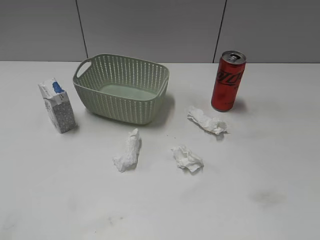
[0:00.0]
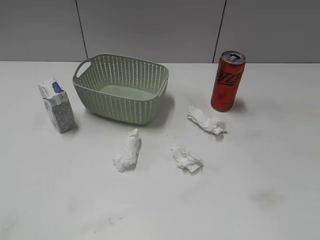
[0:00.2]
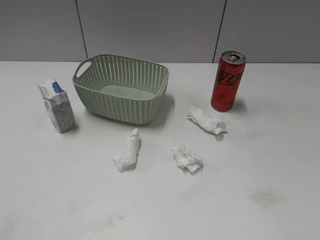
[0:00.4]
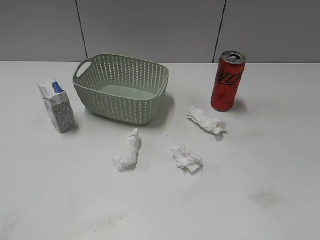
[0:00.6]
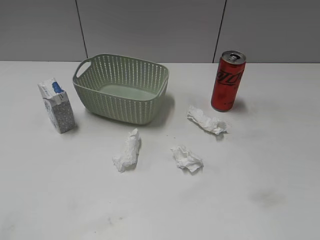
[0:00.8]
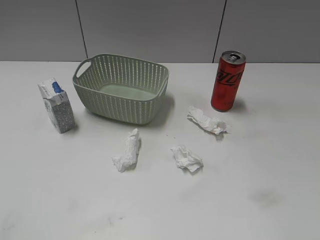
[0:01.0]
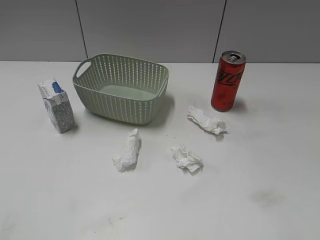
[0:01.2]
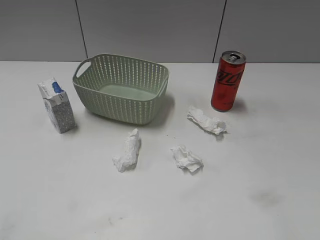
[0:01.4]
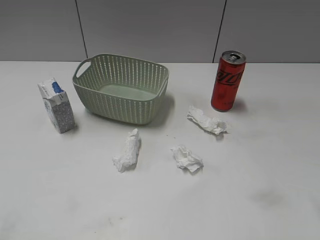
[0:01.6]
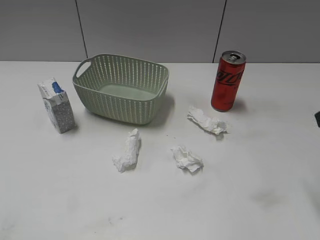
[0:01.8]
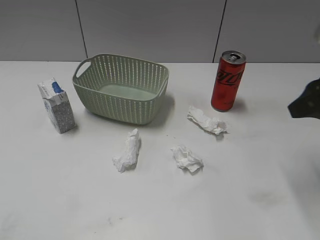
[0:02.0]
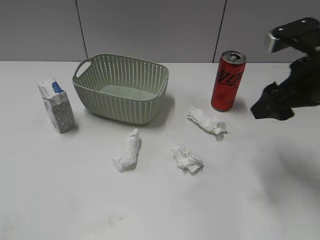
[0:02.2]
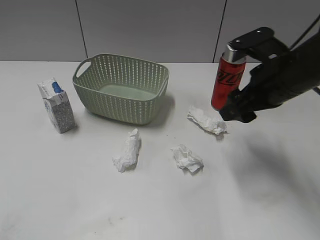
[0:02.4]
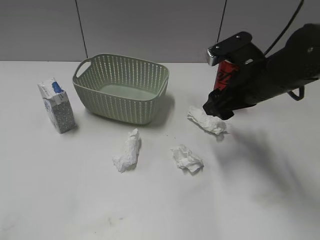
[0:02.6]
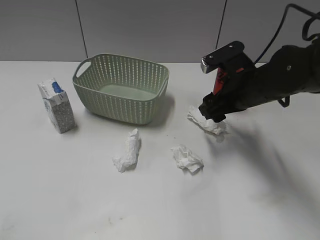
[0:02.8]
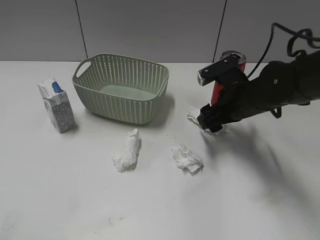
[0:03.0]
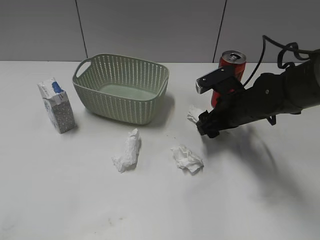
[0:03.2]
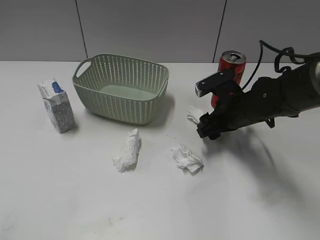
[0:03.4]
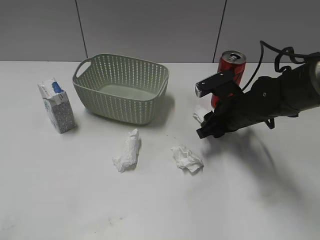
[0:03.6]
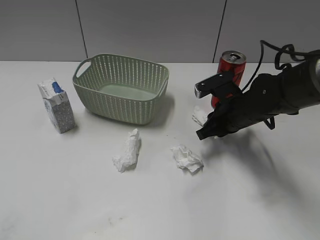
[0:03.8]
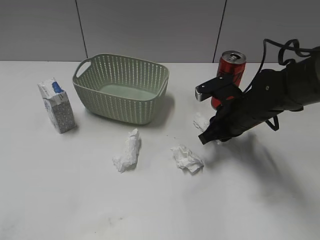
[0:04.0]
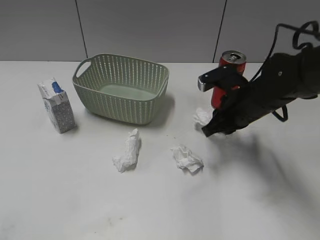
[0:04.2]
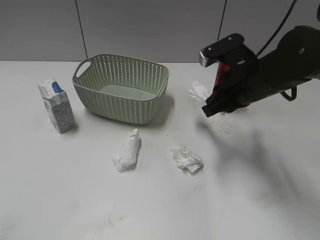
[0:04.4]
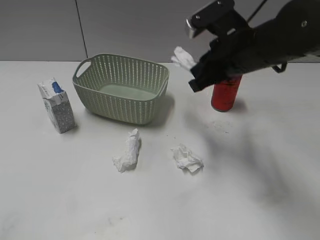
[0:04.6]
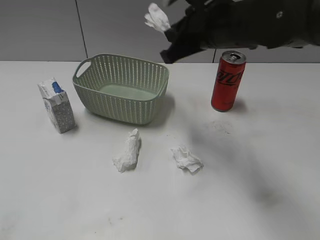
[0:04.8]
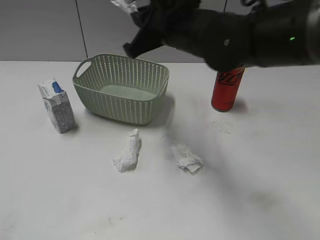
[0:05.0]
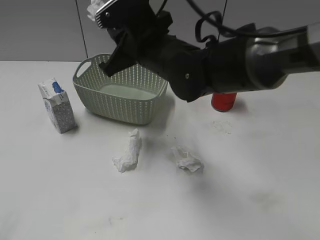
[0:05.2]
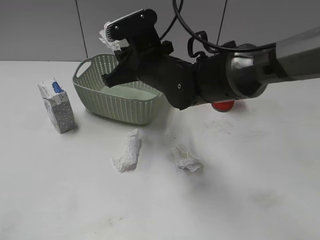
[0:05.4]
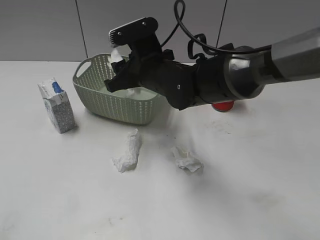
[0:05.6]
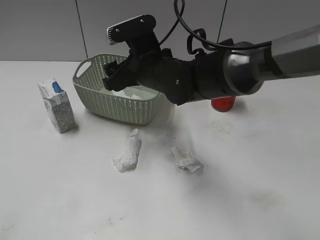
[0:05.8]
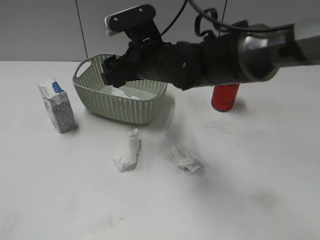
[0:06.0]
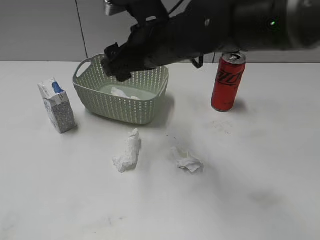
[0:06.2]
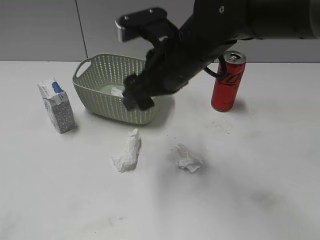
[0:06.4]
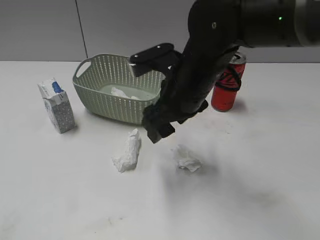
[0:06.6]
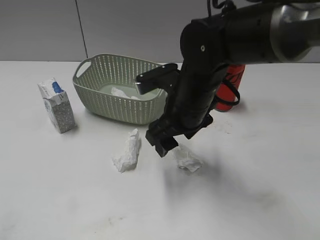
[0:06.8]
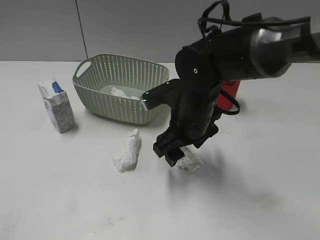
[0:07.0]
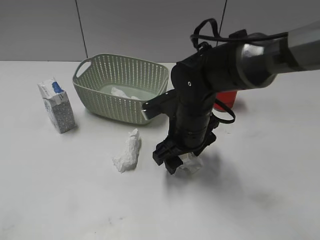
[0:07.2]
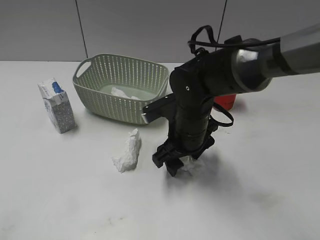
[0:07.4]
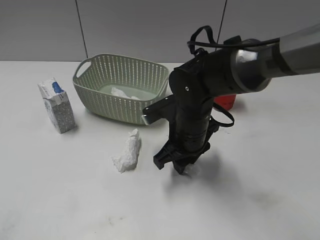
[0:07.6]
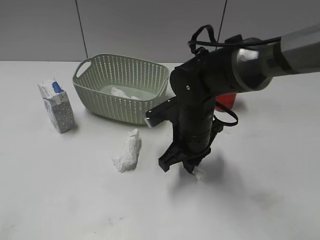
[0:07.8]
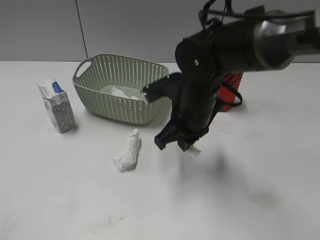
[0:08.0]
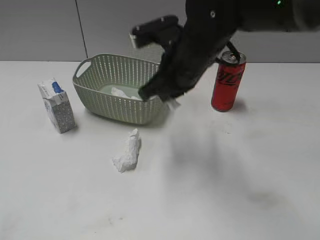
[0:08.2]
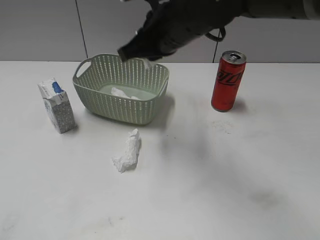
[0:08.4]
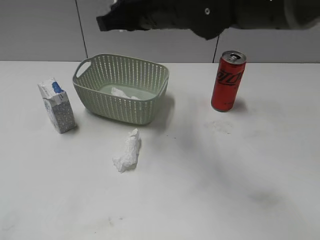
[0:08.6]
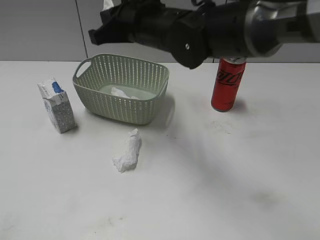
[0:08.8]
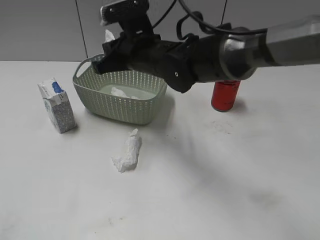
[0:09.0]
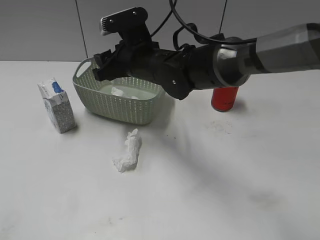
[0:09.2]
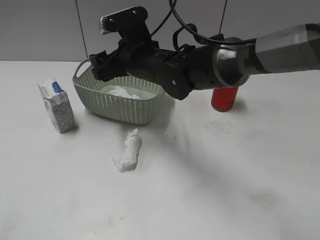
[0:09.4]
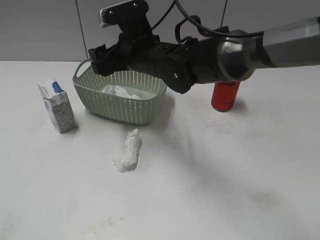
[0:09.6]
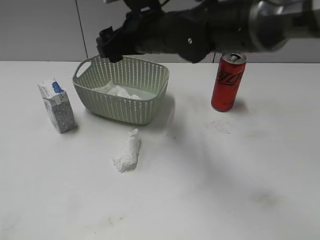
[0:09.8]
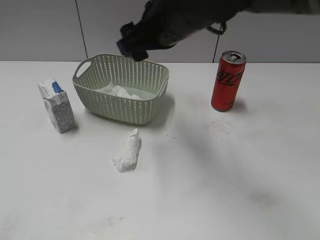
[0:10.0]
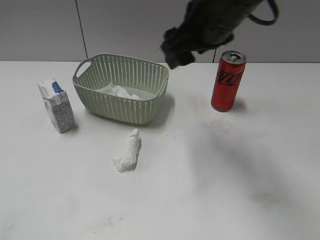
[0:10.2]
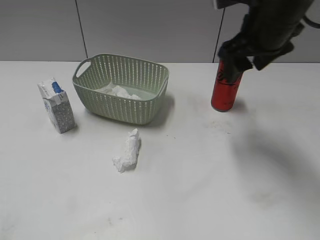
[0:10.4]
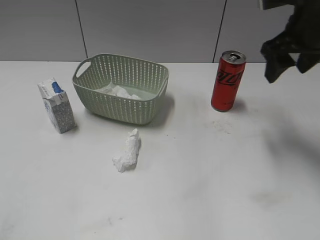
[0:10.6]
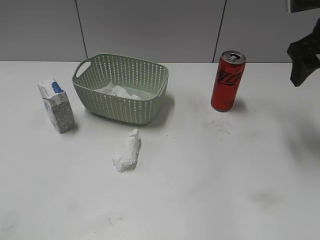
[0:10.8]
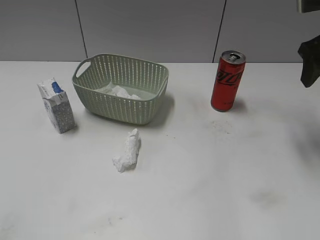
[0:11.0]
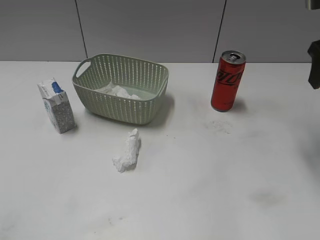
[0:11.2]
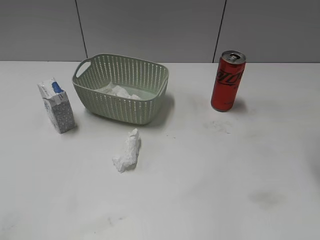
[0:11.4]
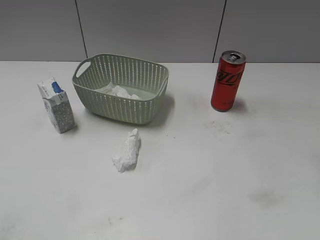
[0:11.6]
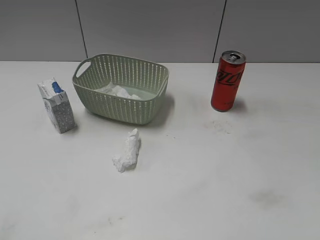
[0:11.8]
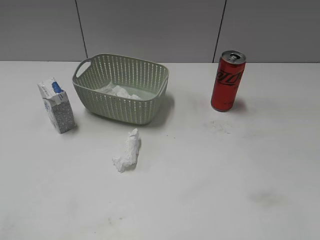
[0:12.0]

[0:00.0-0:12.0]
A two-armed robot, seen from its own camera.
Step, 0:01.8 to 0:03.8: Grasp the waste paper with right gripper.
Step, 0:04.0 to 0:05.8: Place the waste paper in the basket with right gripper.
Step, 0:06.0 to 0:08.0: Grasp the waste paper with right gripper.
Step, 0:08.2 to 0:09.6: Place the waste paper in the basket with right gripper.
0:01.6 to 0:03.0: The right gripper goes about 30 cm forward, downward and to the left.
0:03.0 to 0:04.4: The right gripper closes.
0:04.4 to 0:06.0: The right gripper moves to the left, some 15 cm, and opens its fingers.
0:06.0 to 0:07.6: The right gripper shifts approximately 10 cm downward, backward and to the right.
0:07.6 to 0:09.0: The right gripper shifts about 15 cm upward, forward and to the left, and closes its fingers.
0:09.0 to 0:10.4: The right gripper travels to the right and upward by roughly 20 cm, and opens its fingers.
0:10.4 to 0:12.0: The right gripper travels backward and to the right by approximately 25 cm.

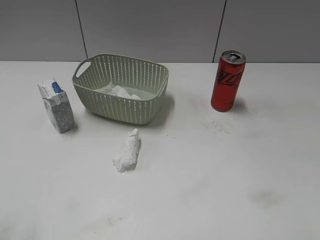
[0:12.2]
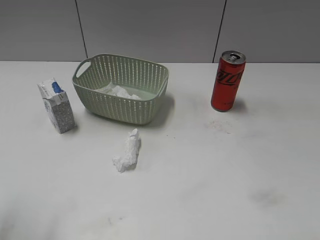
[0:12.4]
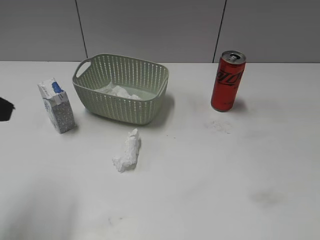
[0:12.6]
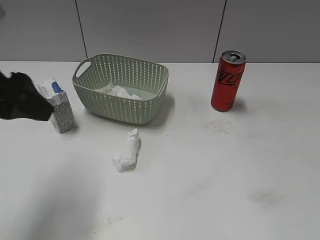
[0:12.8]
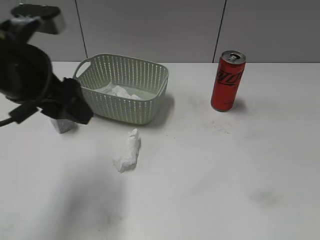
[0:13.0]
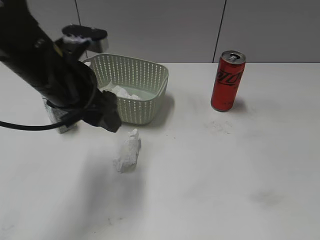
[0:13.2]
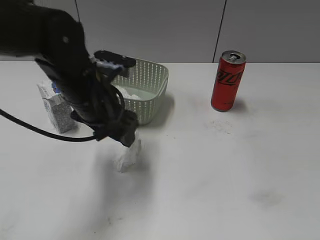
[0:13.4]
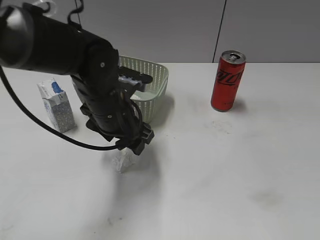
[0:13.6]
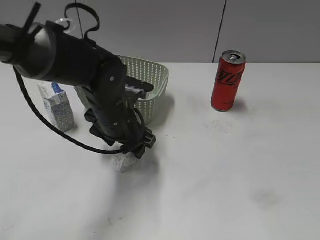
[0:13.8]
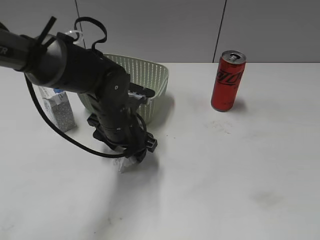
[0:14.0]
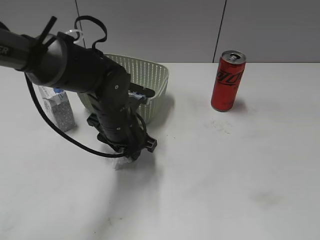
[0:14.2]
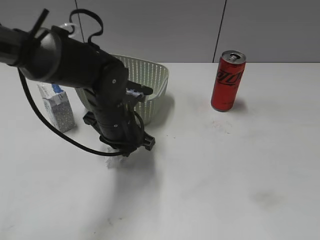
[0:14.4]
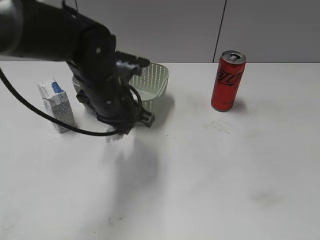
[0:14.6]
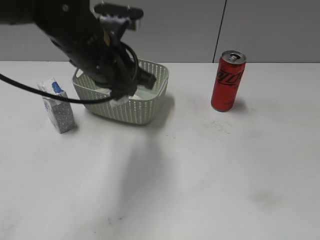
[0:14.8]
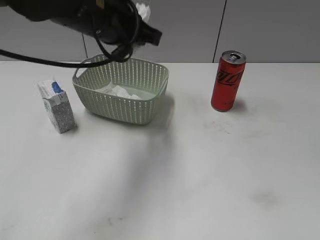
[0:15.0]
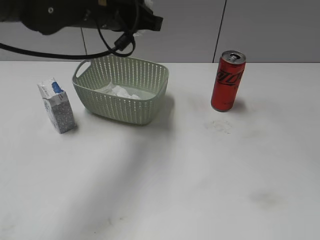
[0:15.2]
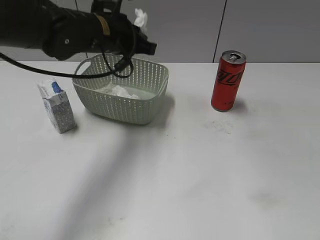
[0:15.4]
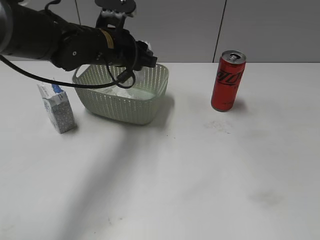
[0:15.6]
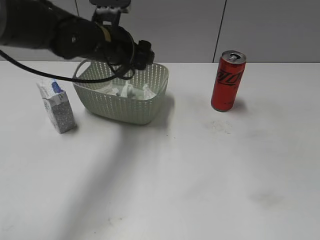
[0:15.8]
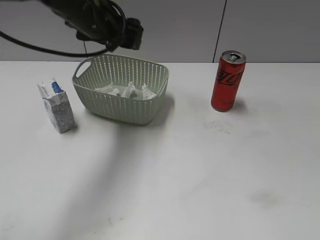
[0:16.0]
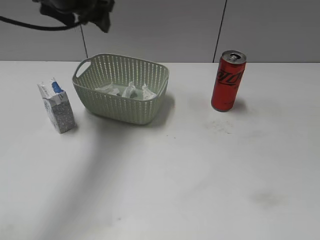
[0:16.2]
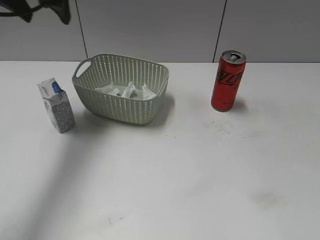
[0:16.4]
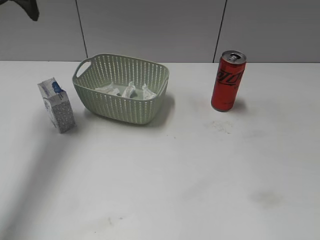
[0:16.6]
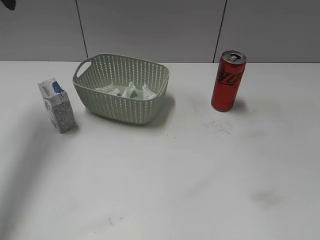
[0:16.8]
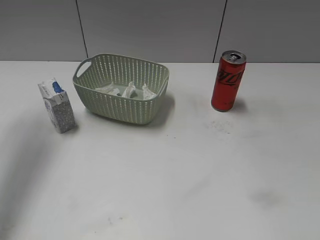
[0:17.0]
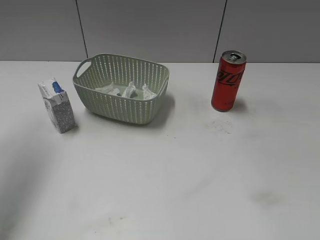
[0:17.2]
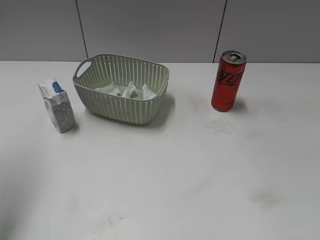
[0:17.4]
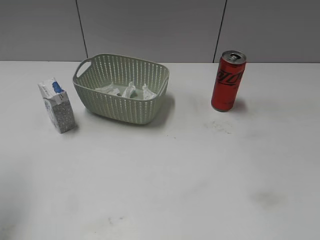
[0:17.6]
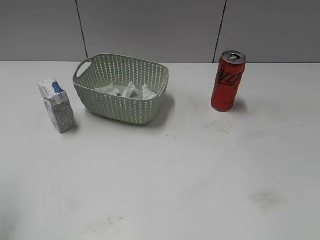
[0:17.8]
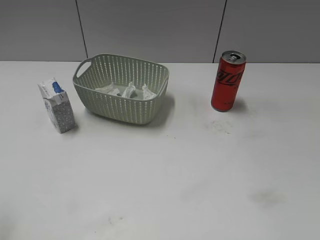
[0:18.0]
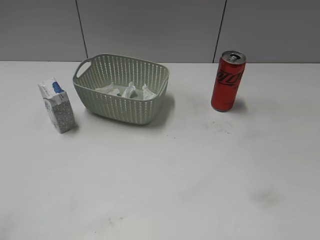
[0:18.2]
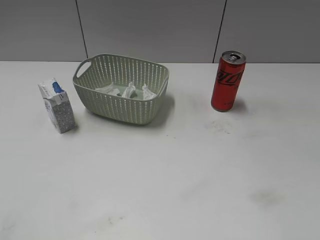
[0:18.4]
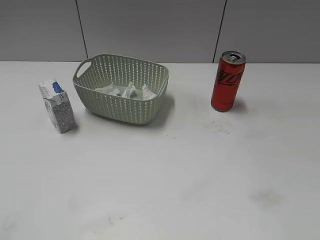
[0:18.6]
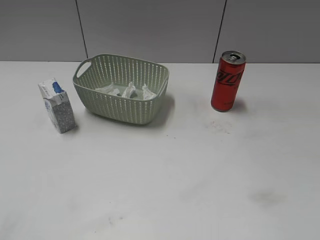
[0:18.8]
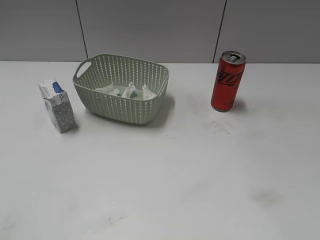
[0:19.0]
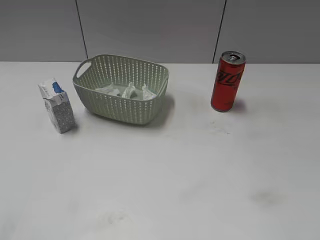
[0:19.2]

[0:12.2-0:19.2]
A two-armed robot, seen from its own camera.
Step, 0:12.2 to 0:14.4: Grasp the waste paper with left gripper.
Step, 0:14.6 to 0:15.8: Place the waste paper in the basket with left gripper.
0:12.2 to 0:13.6: The right gripper shifts about 10 cm backward, while the left gripper shifts roughly 35 cm to the right, forward and downward.
0:13.6 to 0:15.0: The left gripper shifts roughly 10 cm upward, and closes up.
0:15.0 to 0:16.4: The left gripper travels to the left, forward and upward by about 15 cm, and opens its fingers.
0:16.4 to 0:17.8: The left gripper heads backward and to the left, covering about 25 cm.

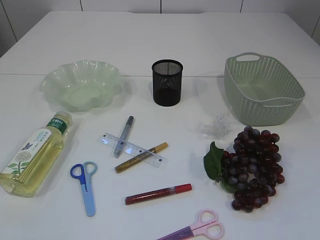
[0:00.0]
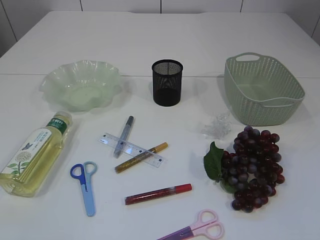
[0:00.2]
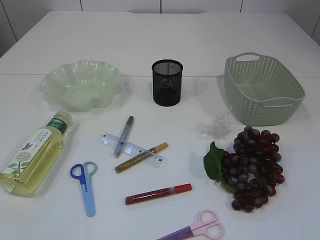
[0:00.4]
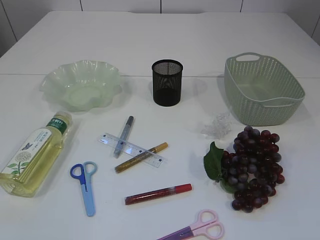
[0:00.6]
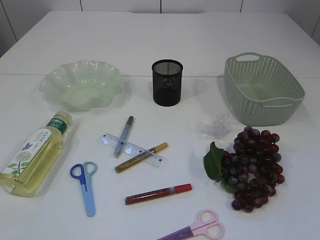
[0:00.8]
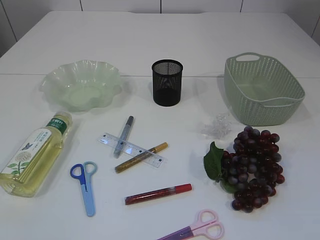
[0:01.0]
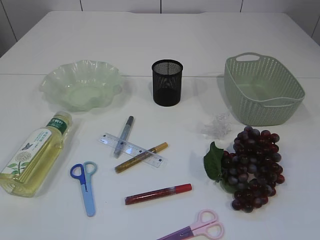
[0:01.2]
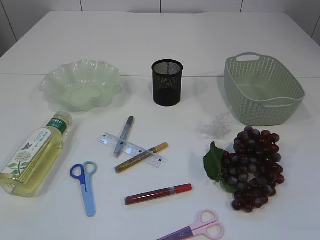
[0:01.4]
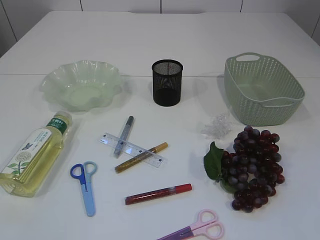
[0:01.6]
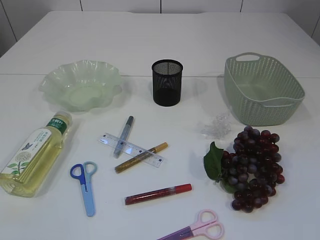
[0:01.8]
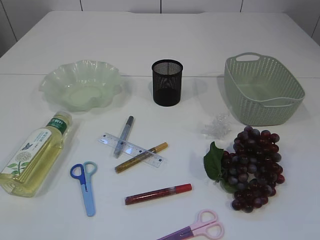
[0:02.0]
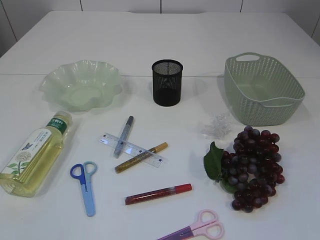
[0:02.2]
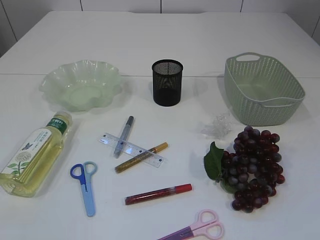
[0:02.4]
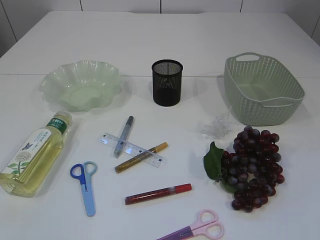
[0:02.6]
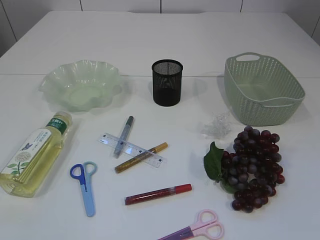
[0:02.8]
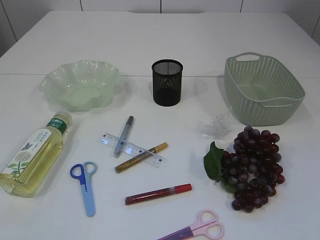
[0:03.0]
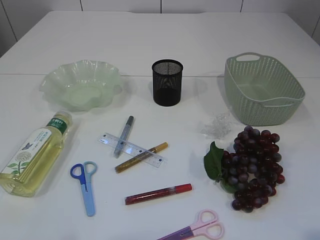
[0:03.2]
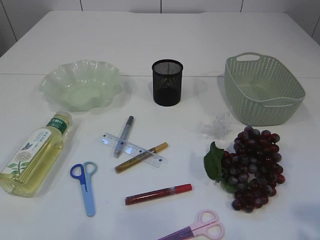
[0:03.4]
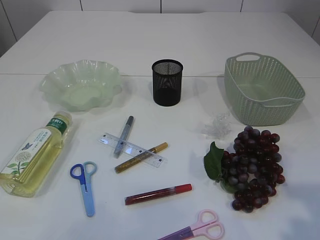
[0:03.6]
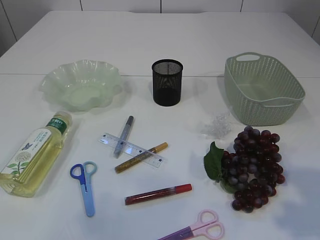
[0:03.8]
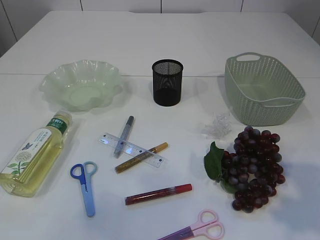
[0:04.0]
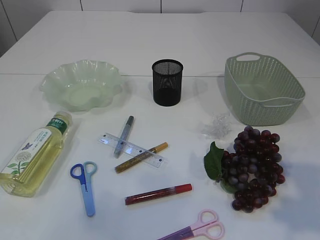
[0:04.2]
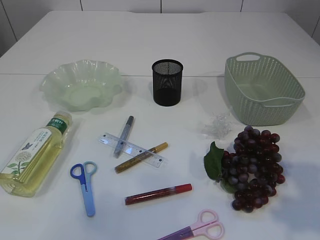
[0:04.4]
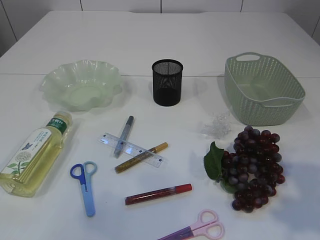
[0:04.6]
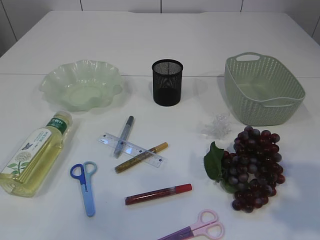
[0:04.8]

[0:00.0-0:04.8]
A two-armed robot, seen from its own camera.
0:03.2 to 0:04.8: The grippers both shift forward by approximately 10 cm.
